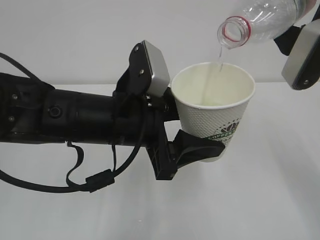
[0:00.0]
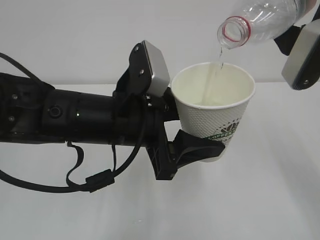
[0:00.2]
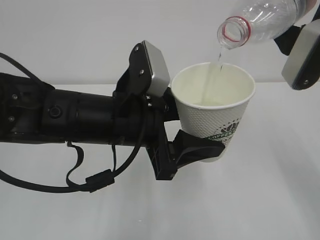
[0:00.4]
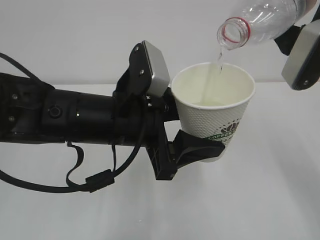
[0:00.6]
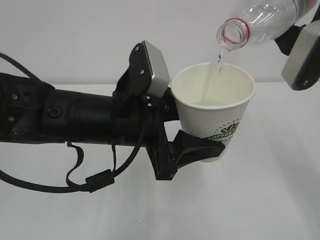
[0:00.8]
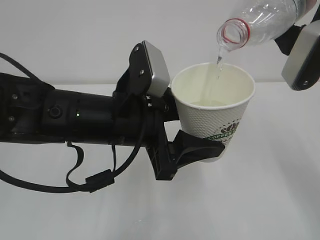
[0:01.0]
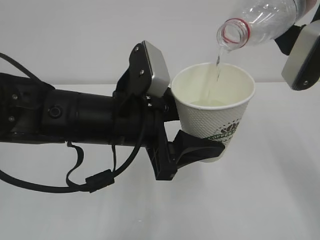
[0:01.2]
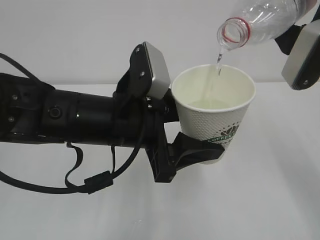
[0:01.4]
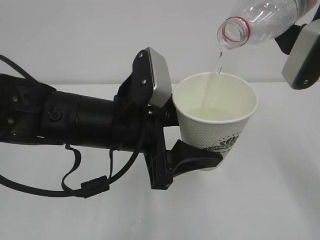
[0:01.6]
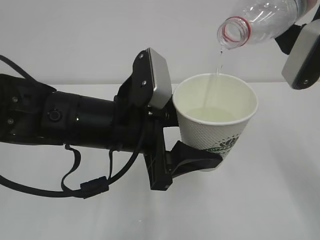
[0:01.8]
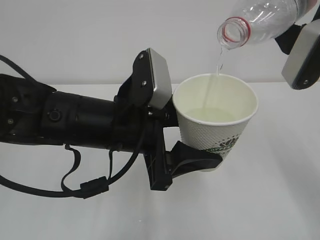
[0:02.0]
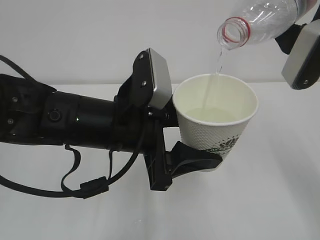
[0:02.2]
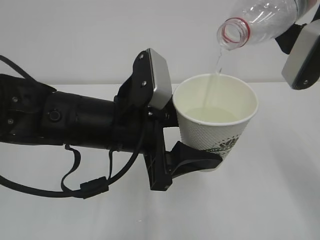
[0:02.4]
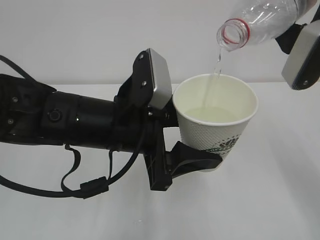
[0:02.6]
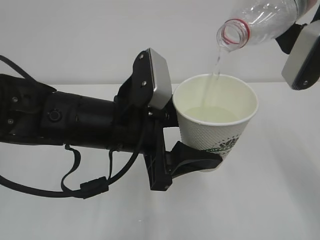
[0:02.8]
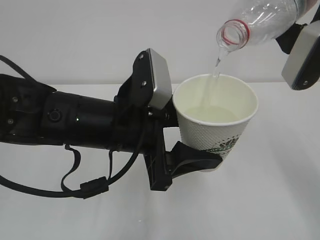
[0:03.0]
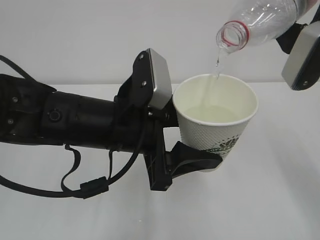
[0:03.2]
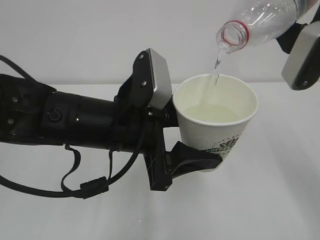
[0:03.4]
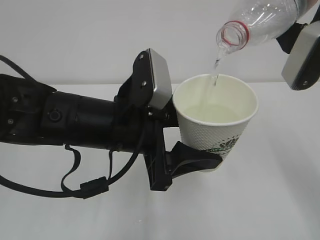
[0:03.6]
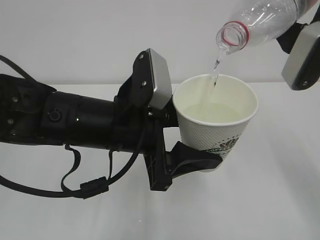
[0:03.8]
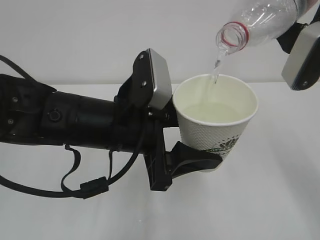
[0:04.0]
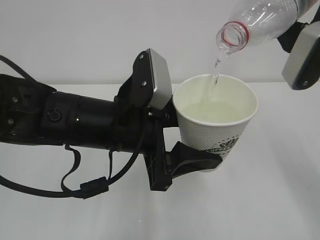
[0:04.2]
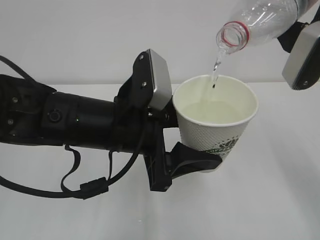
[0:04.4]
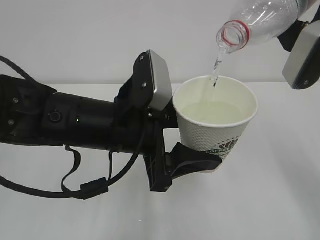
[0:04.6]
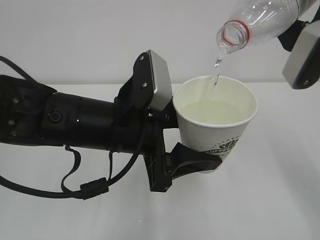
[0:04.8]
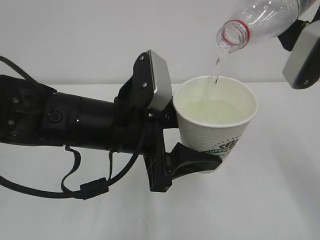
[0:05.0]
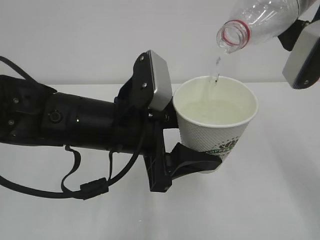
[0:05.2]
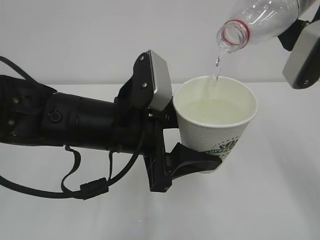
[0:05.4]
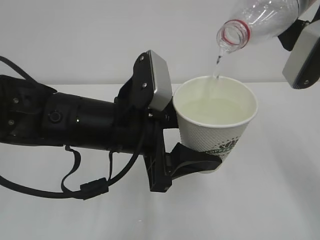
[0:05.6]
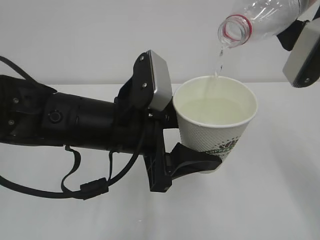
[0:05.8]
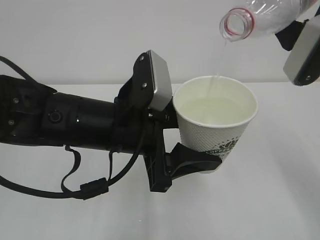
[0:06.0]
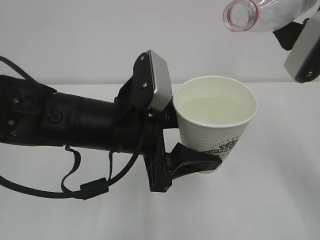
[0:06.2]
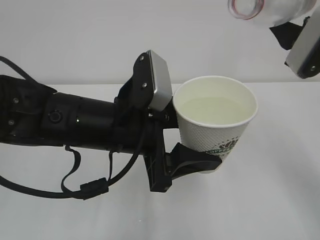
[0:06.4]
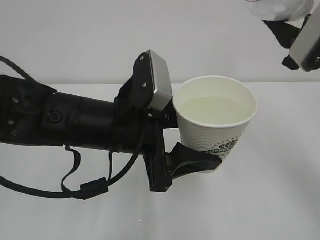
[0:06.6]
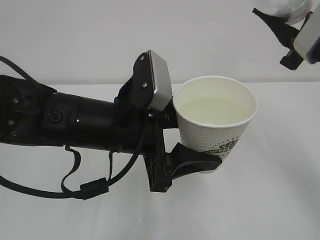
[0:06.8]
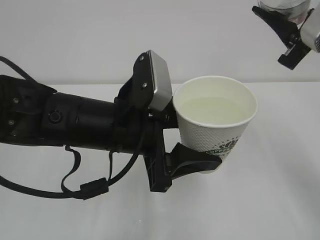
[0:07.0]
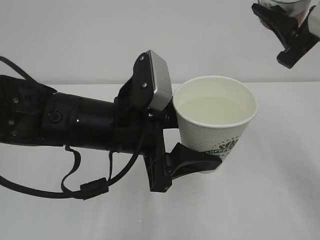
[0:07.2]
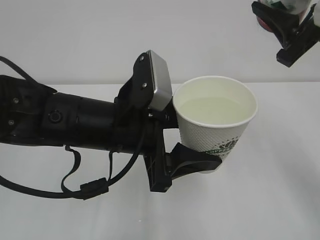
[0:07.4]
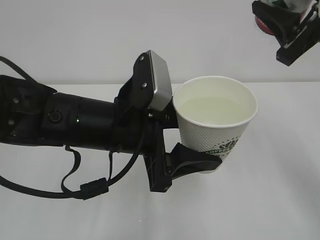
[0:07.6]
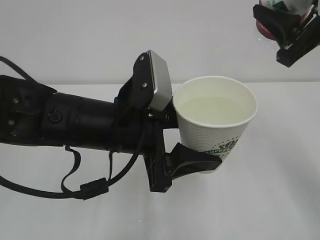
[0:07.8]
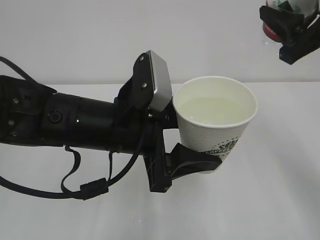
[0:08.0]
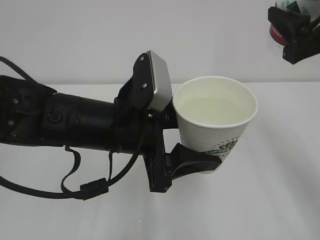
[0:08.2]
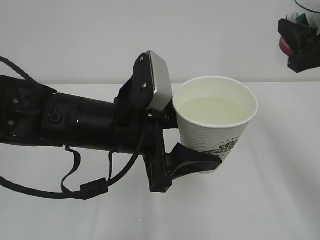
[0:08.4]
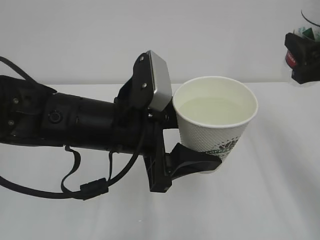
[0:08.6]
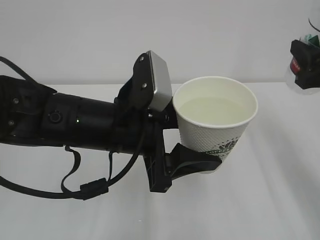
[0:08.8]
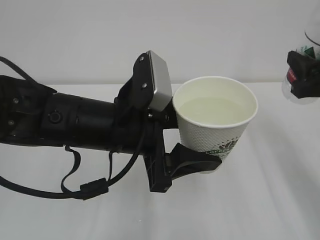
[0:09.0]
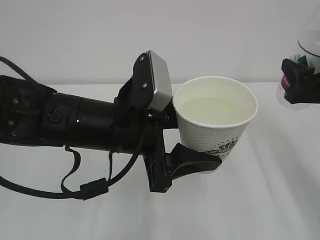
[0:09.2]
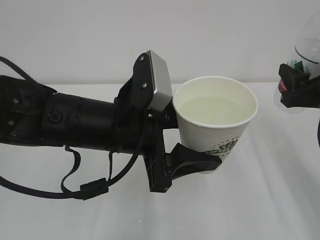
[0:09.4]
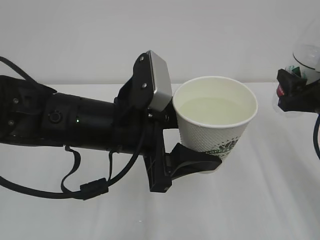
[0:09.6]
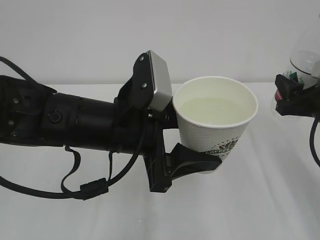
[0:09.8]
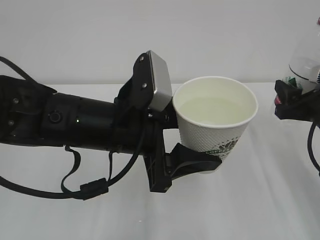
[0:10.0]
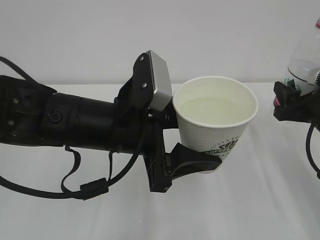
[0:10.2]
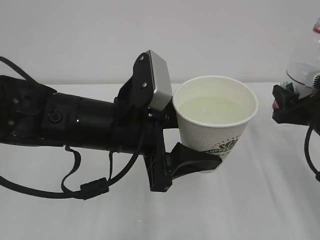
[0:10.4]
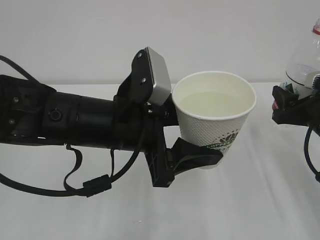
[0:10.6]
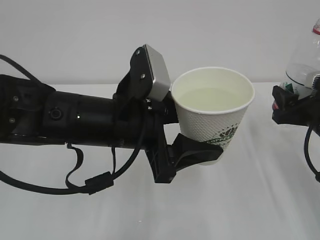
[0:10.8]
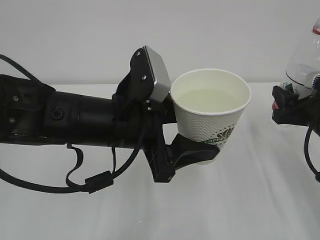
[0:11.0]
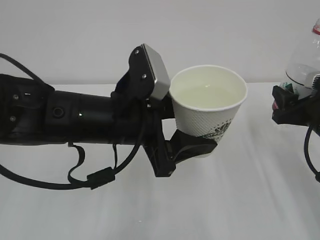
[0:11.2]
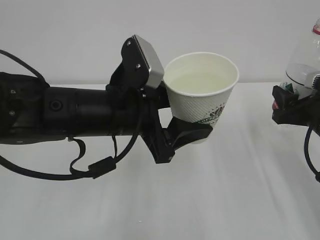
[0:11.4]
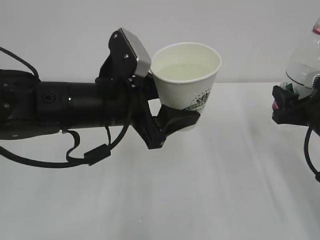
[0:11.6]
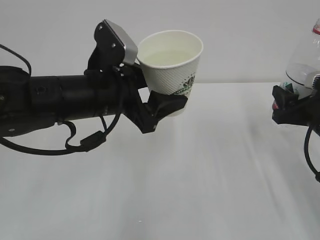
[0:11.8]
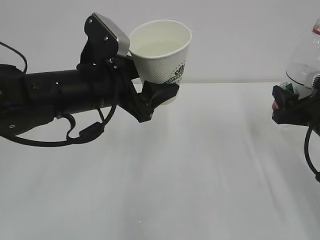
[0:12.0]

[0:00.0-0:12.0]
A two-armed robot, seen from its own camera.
0:00.0 to 0:01.6: Both grippers stay put.
0:01.6 to 0:04.4: Both grippers stay put.
0:04.4 to 0:06.0: There are only small adjustments of the grippers.
0:07.6 to 0:09.0: The right gripper shifts approximately 10 cm downward.
0:09.0 to 0:10.4: The right gripper moves downward, approximately 10 cm.
0:10.4 to 0:12.0: The left gripper moves forward, approximately 5 cm.

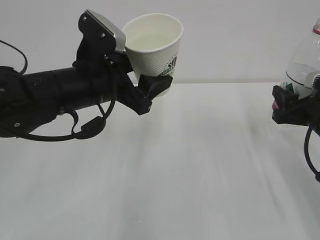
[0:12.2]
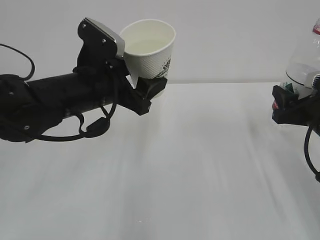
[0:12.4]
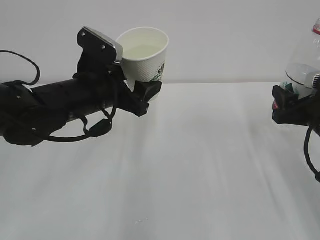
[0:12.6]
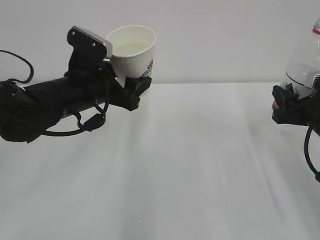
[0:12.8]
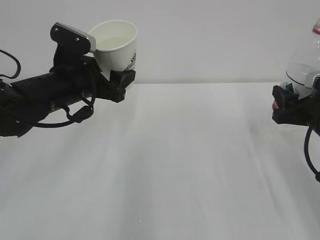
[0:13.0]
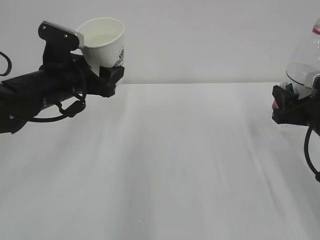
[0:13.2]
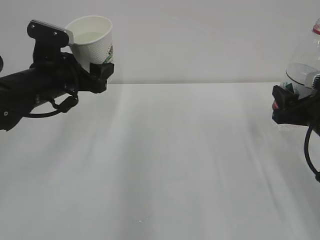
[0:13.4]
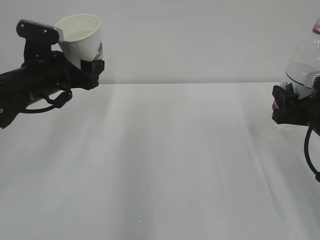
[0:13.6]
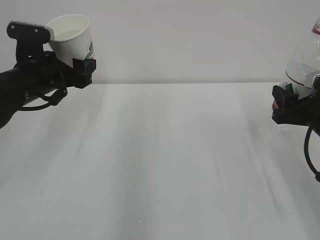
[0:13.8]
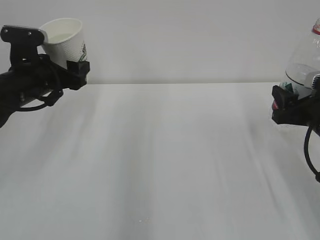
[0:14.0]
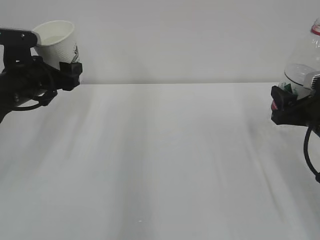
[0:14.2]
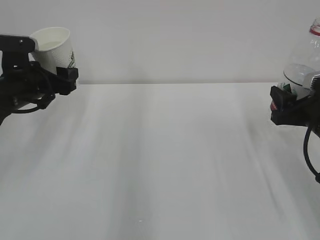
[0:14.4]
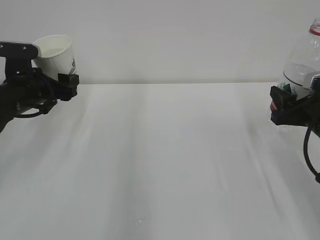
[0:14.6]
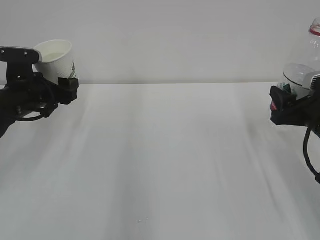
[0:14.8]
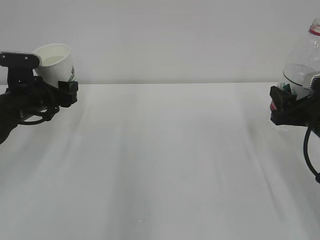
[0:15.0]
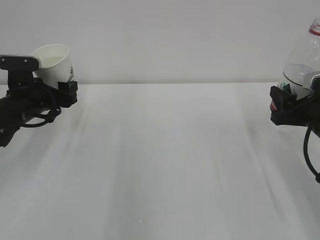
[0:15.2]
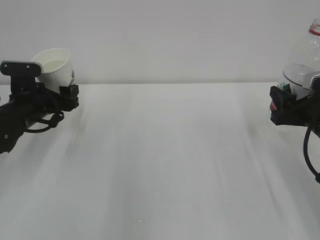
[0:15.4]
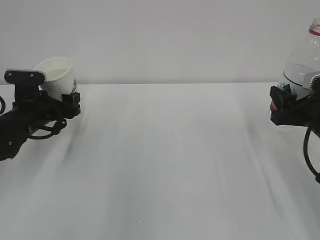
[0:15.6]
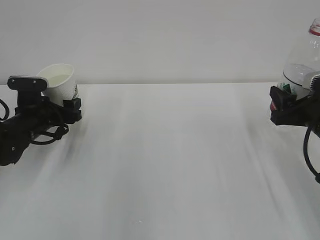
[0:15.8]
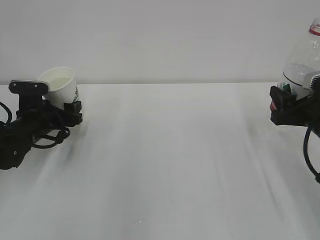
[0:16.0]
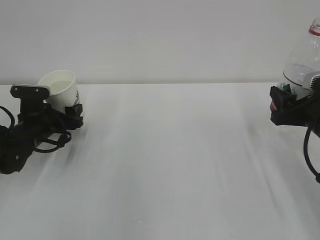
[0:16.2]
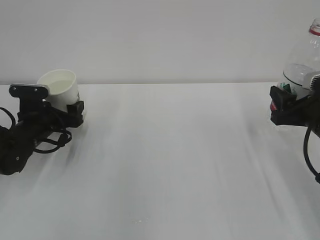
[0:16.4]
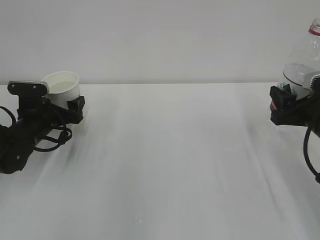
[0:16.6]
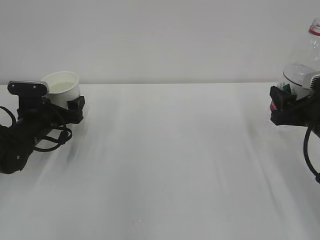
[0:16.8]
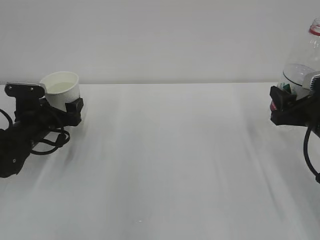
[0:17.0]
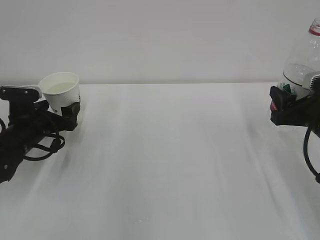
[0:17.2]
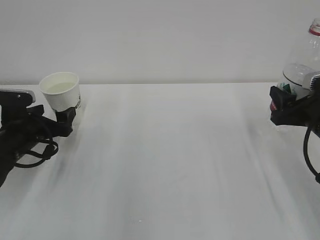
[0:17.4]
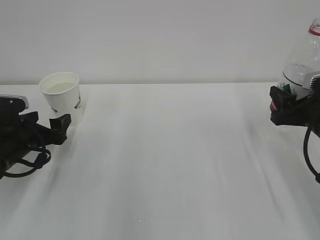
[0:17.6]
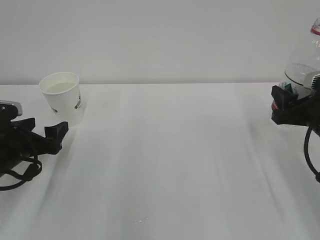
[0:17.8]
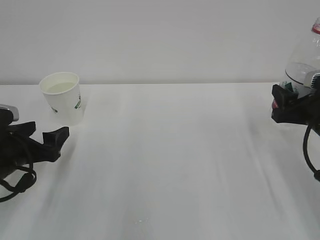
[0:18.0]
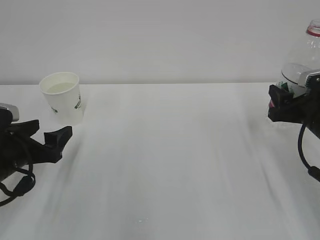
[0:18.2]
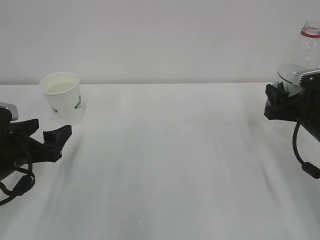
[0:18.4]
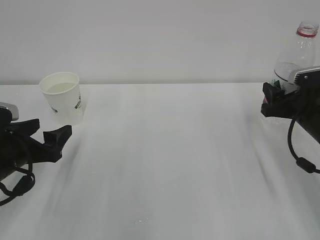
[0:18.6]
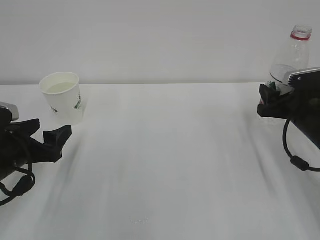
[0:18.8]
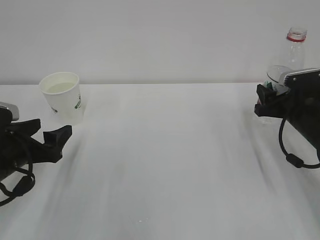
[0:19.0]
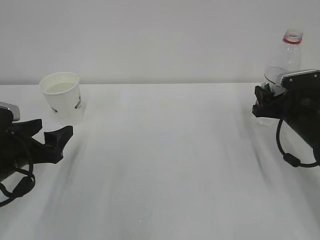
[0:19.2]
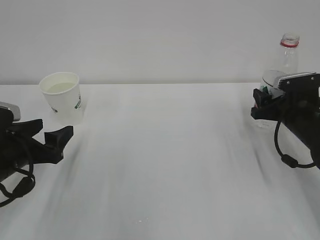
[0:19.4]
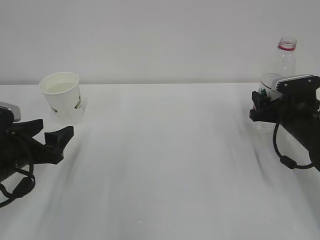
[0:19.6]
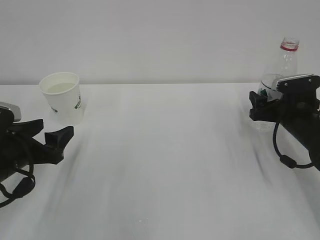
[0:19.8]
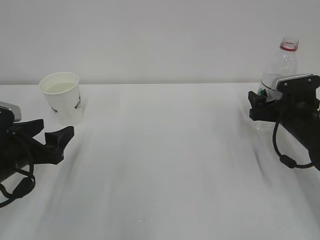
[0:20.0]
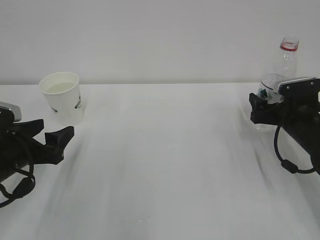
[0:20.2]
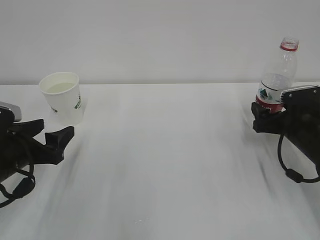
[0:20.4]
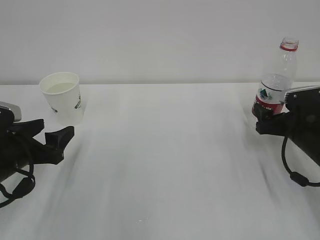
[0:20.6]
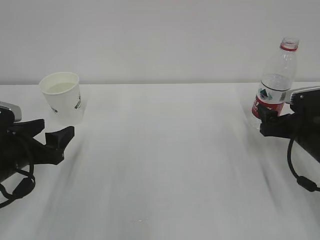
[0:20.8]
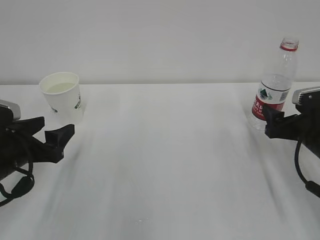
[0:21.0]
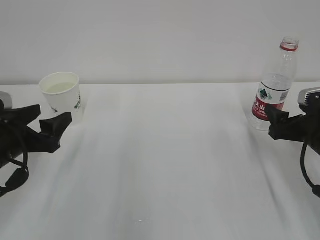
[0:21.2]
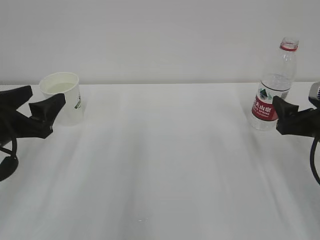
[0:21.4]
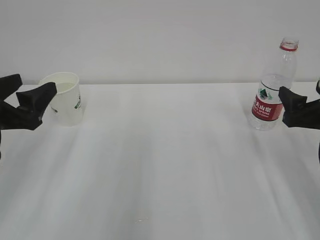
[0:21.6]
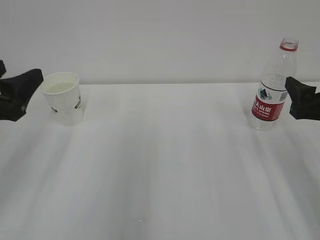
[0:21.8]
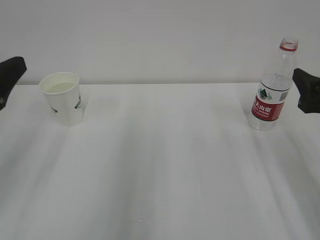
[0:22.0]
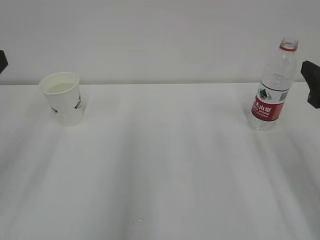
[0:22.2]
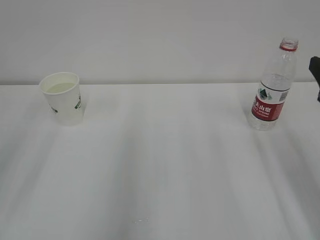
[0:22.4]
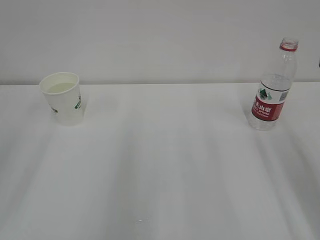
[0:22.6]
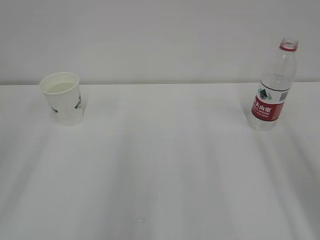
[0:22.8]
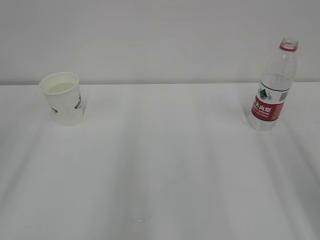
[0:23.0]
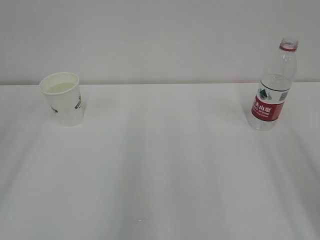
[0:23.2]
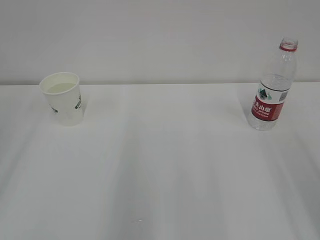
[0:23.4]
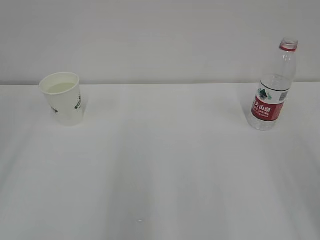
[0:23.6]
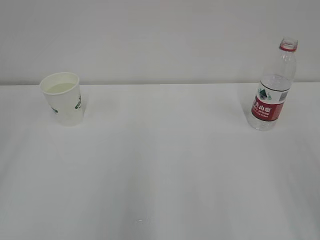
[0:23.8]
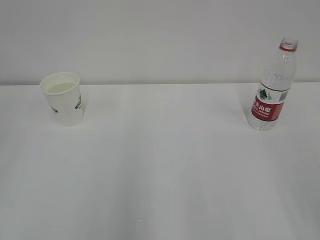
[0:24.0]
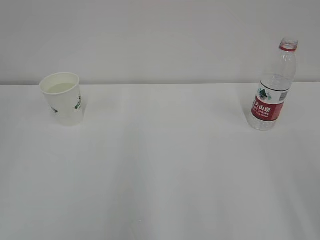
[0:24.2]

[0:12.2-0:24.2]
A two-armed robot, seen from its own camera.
0:12.2 to 0:13.8: The left gripper is displaced to the left and forward by about 15 cm.
0:13.8 to 0:15.2: The left gripper shifts about 5 cm downward.
0:15.2 to 0:16.6: The left gripper goes some 5 cm downward, and opens up.
0:16.6 to 0:18.2: The left gripper travels backward by about 15 cm.
0:18.2 to 0:19.8: The right gripper moves forward and downward, some 10 cm, and opens its fingers.
0:19.8 to 0:21.2: The right gripper shifts roughly 10 cm backward.
0:21.2 to 0:22.6: Both grippers travel together upward and backward, about 20 cm.
